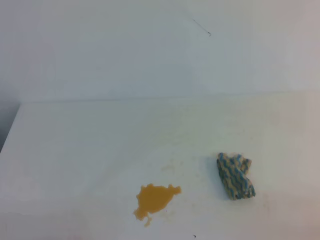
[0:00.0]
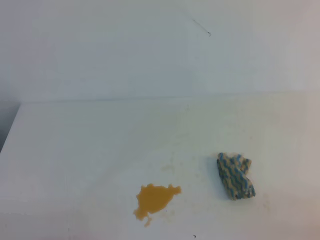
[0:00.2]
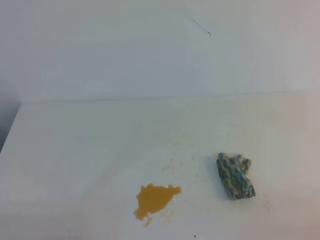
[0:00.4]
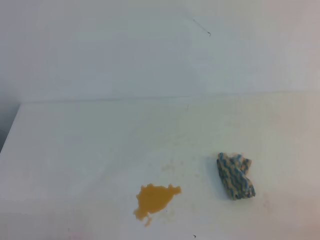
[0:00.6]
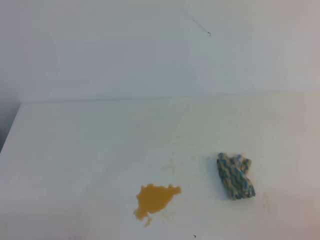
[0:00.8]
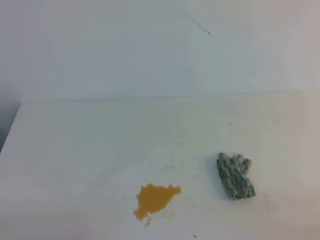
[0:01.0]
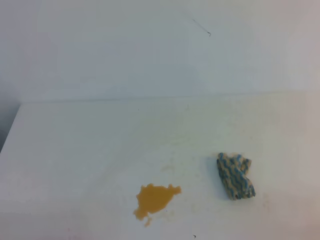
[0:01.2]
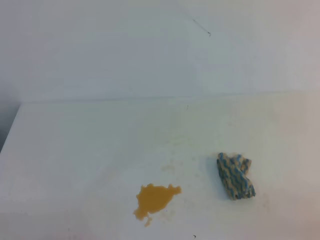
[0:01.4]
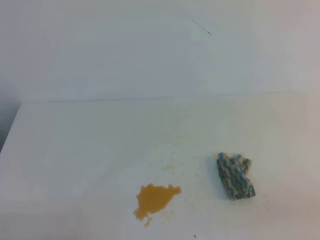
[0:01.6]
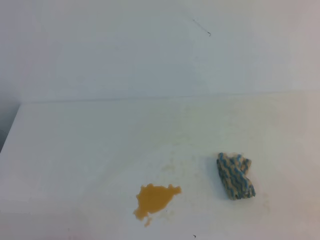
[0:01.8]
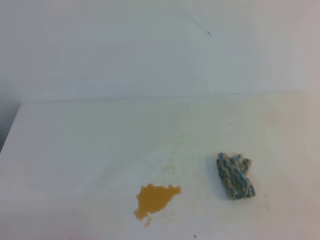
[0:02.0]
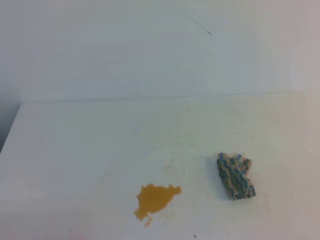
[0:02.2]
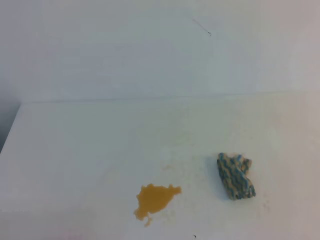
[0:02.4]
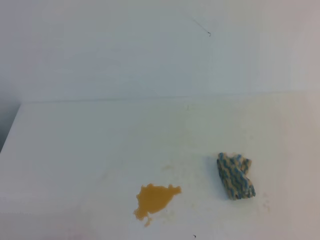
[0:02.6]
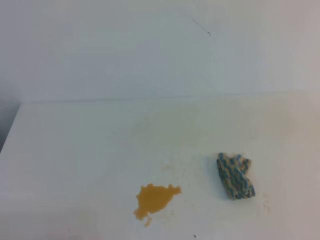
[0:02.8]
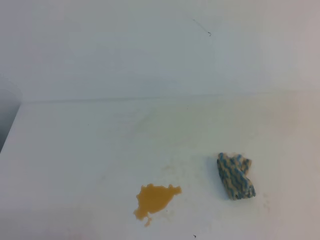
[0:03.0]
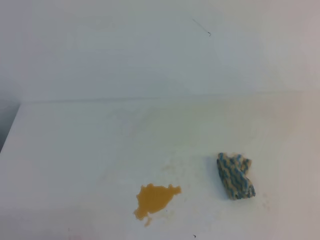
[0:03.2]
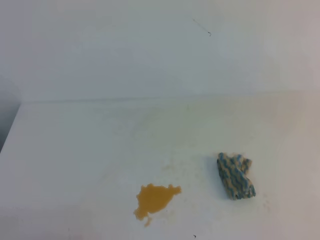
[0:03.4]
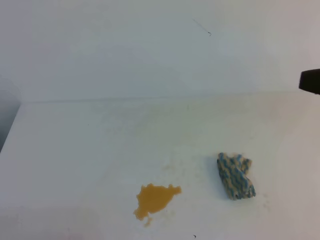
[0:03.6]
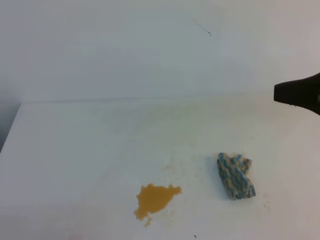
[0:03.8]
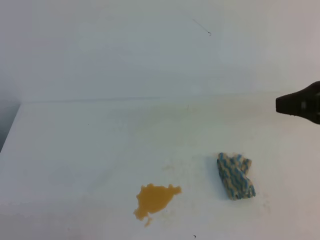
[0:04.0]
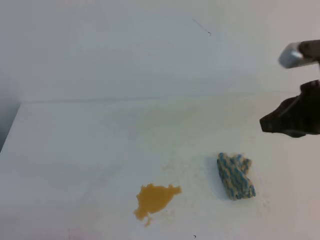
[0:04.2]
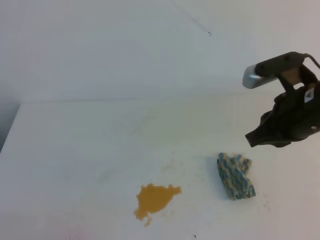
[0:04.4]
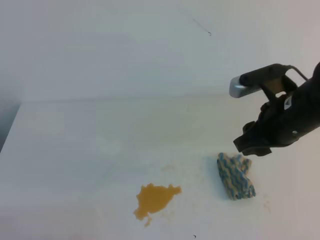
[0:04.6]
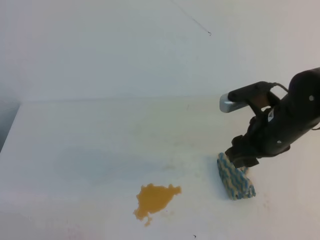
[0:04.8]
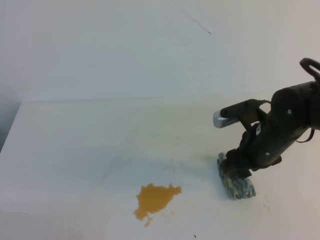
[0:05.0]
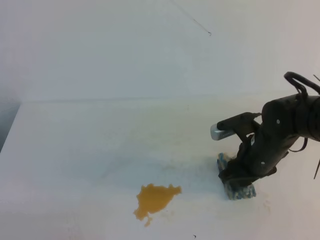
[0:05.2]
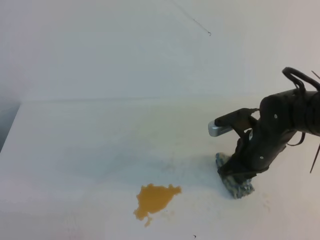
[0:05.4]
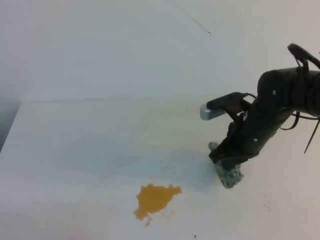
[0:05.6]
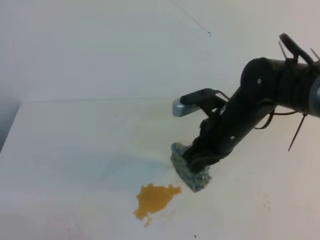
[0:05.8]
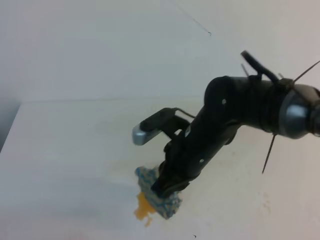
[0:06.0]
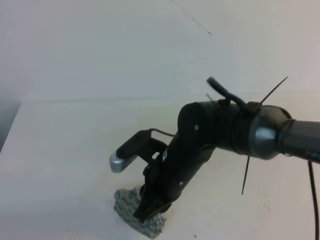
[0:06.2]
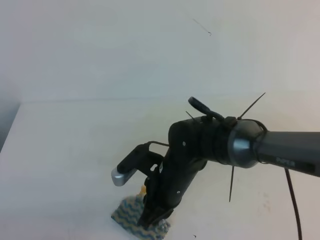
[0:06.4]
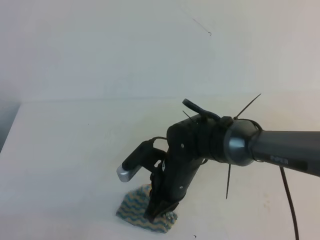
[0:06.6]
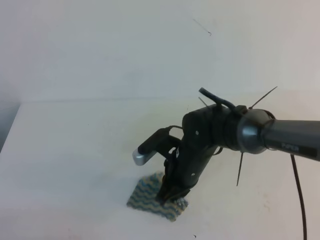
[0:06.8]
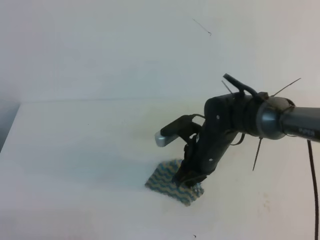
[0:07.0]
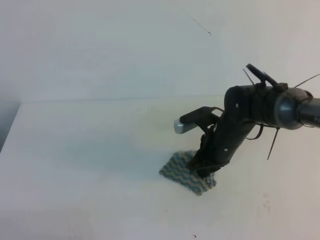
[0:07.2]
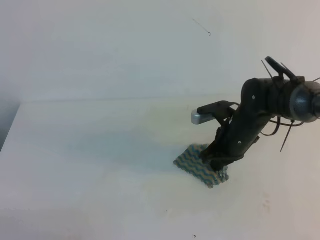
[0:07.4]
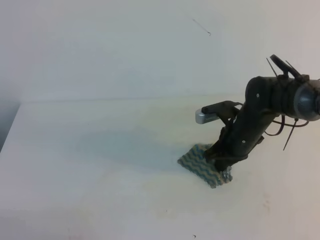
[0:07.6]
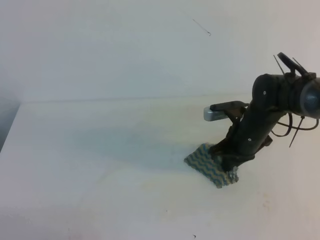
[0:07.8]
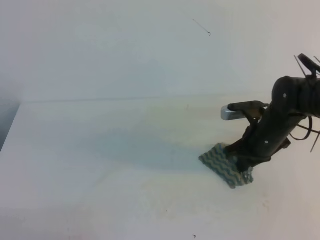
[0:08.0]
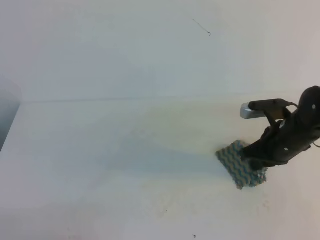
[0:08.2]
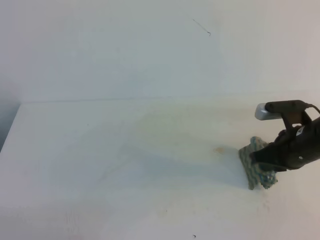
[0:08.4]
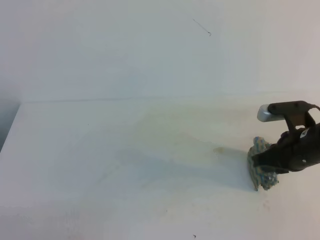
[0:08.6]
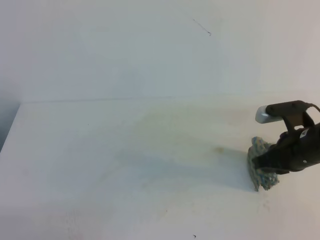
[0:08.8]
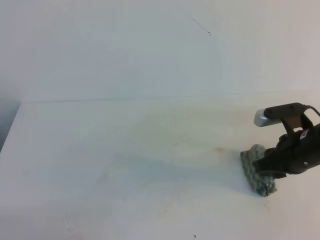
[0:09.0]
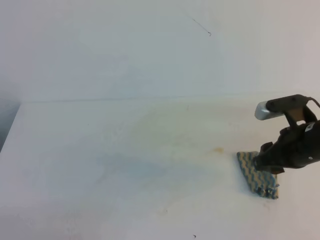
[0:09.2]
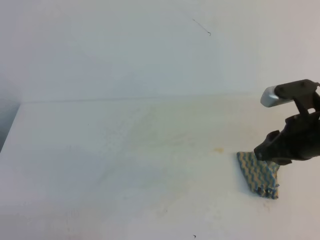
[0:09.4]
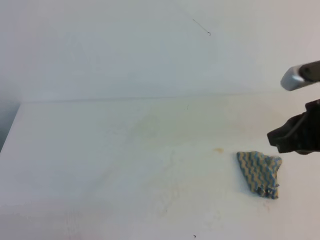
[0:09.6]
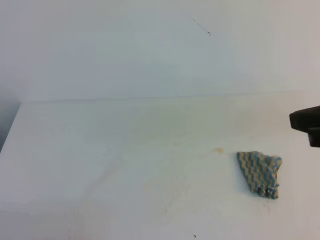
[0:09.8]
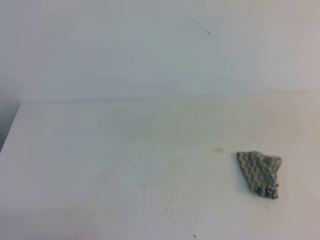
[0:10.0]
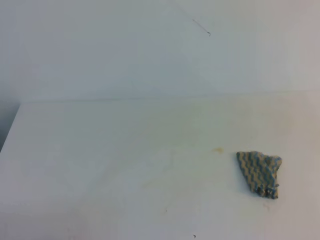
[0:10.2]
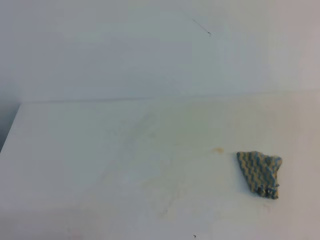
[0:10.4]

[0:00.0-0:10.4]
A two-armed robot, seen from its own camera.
0:00.0 to 0:01.4: Neither gripper changes place.
0:03.0 to 0:04.4: The right gripper is displaced forward, downward and to the left by some 25 cm.
0:04.4 to 0:06.0: The right gripper shifts approximately 15 cm to the left and downward, and opens, then closes again.
0:06.0 to 0:07.4: The right gripper shifts about 10 cm forward, downward and to the right.
0:07.4 to 0:09.0: The right gripper travels to the right and backward by some 15 cm, and opens up.
0:09.0 to 0:10.4: The right gripper moves upward and backward, roughly 30 cm, and closes up.
